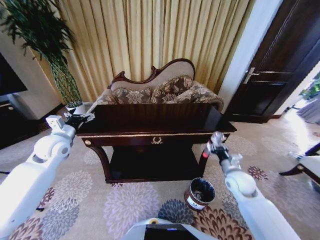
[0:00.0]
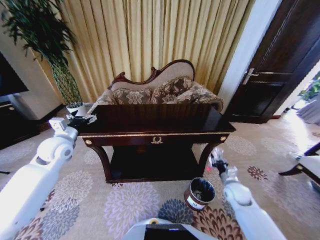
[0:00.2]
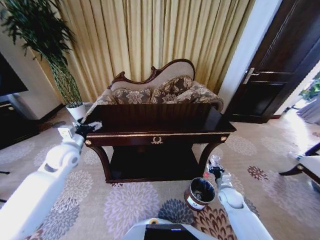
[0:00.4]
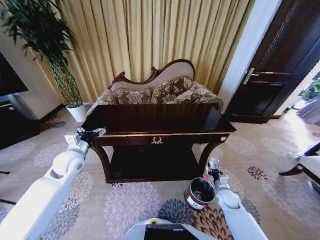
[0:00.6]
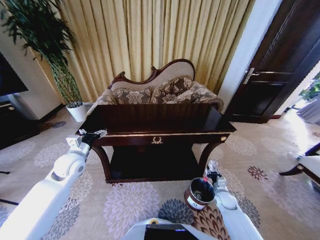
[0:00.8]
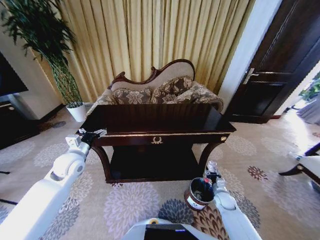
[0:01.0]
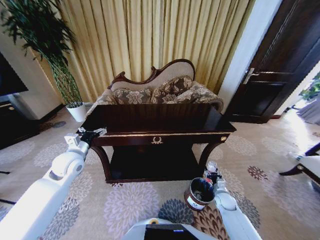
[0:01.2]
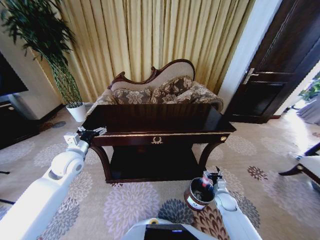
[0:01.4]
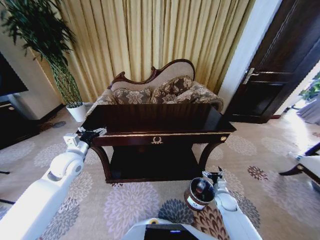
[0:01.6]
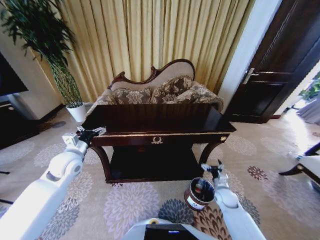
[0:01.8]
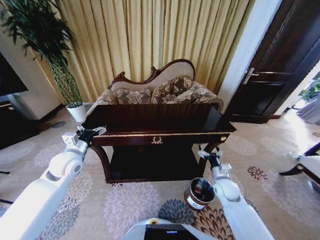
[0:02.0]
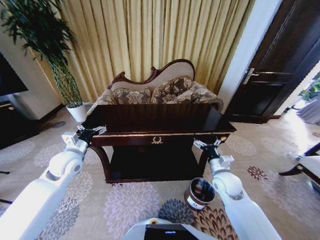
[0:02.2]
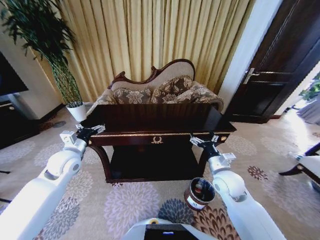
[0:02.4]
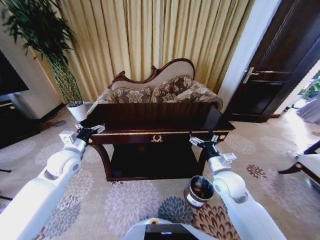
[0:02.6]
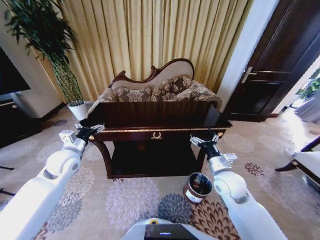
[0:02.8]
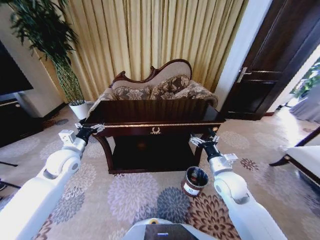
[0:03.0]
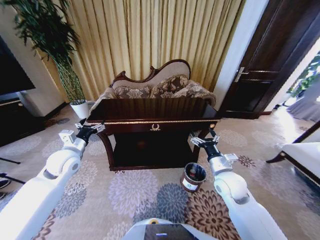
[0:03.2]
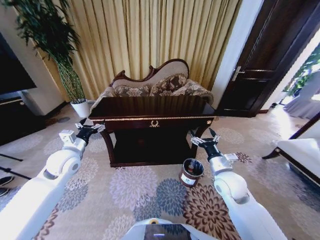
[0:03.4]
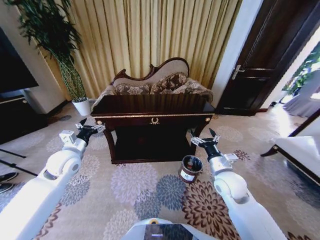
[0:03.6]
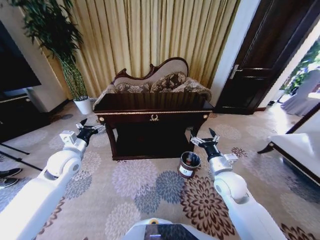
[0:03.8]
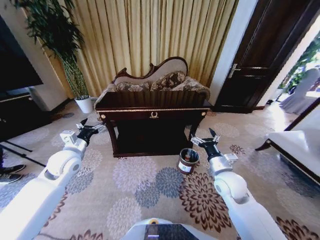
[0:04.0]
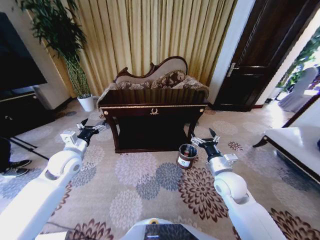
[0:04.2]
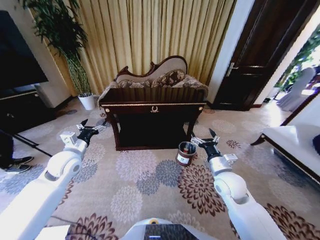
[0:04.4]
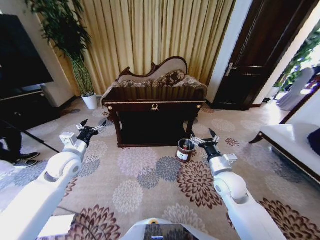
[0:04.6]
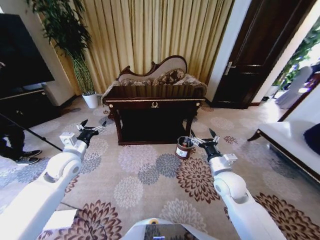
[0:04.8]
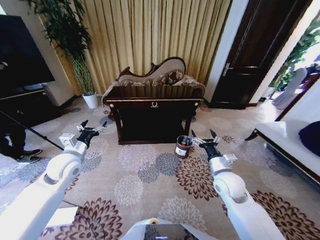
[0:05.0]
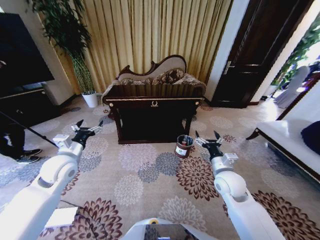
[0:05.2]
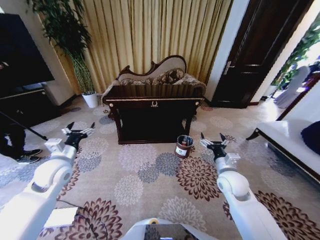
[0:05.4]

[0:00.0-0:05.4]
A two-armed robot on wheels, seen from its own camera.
Task of the whole recording: Move to the front of the table and place the trash on the table into the trash bin.
0:00.0 to 0:01.4: The left gripper is displaced downward by about 5 cm. The right gripper travels downward by some 20 cm, and opens its fingers.
0:01.4 to 0:02.8: The right gripper moves upward and to the left, some 30 cm.

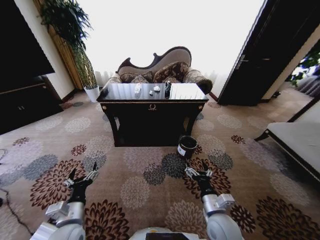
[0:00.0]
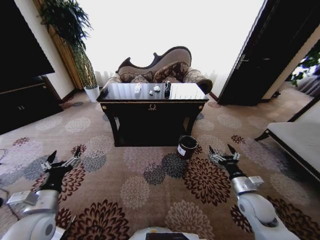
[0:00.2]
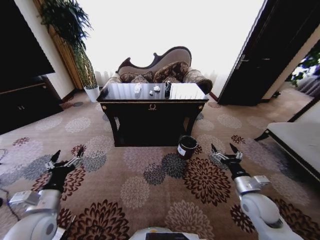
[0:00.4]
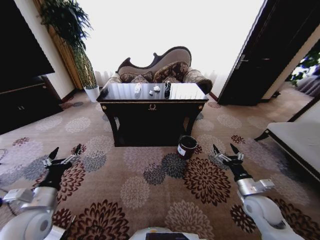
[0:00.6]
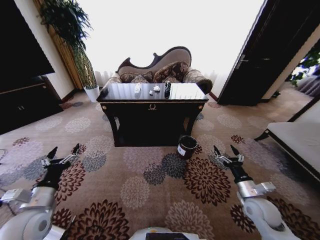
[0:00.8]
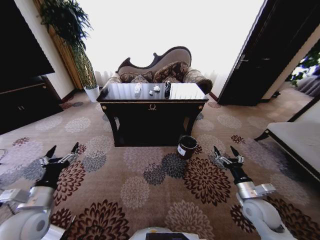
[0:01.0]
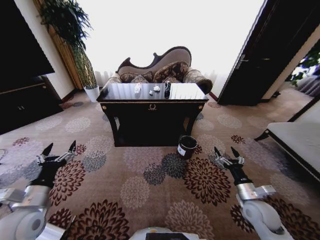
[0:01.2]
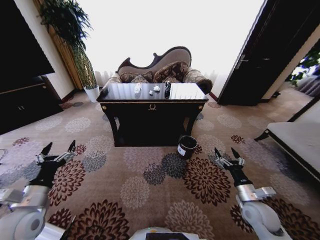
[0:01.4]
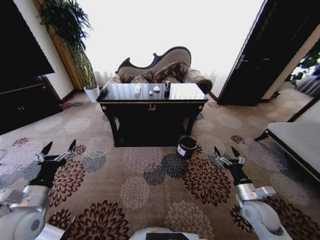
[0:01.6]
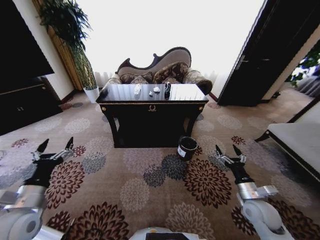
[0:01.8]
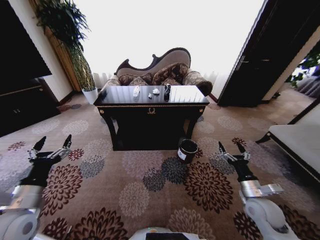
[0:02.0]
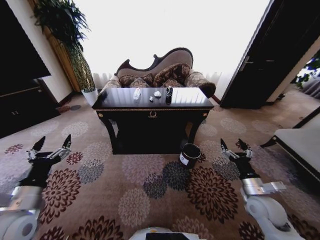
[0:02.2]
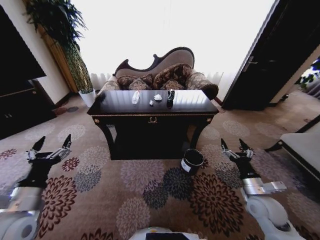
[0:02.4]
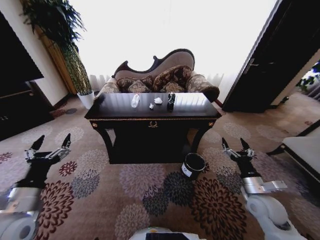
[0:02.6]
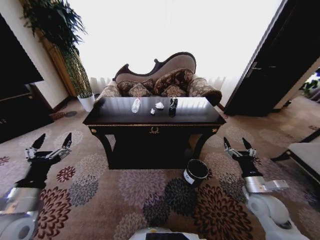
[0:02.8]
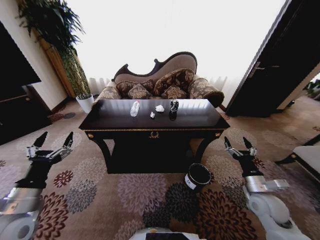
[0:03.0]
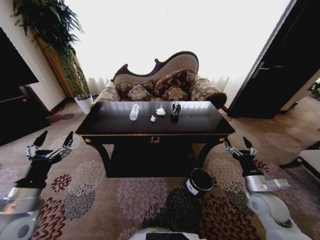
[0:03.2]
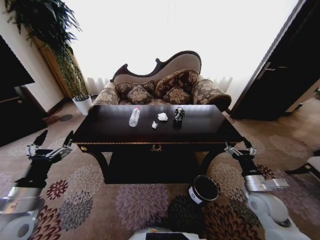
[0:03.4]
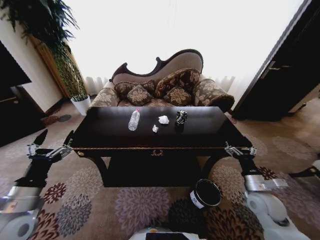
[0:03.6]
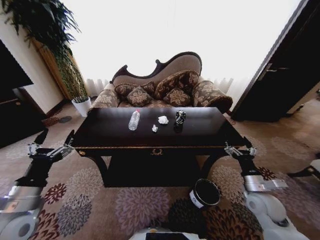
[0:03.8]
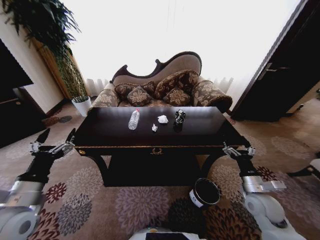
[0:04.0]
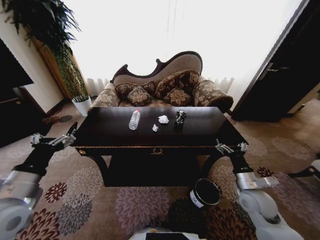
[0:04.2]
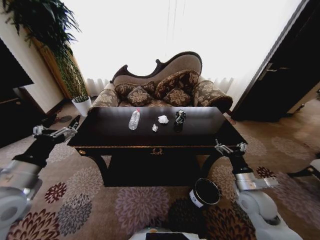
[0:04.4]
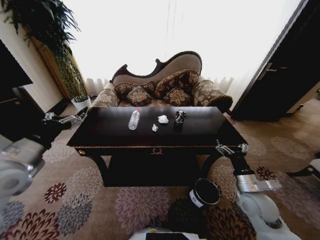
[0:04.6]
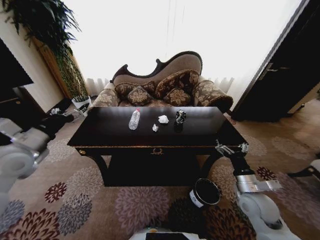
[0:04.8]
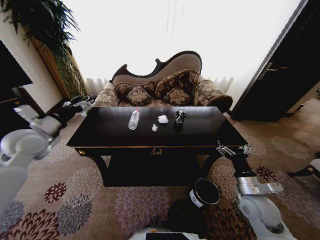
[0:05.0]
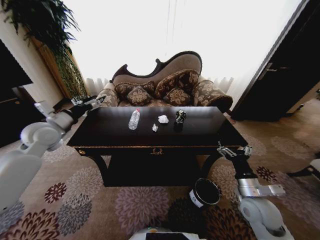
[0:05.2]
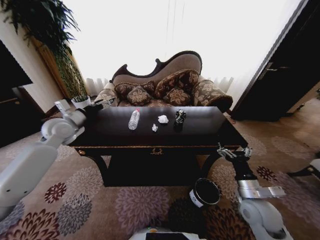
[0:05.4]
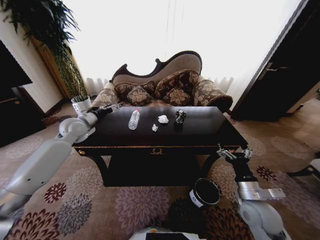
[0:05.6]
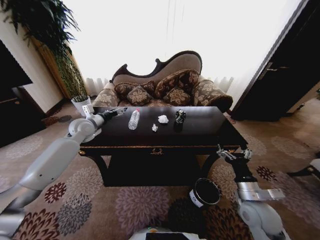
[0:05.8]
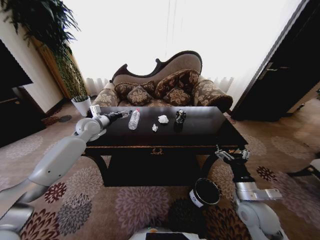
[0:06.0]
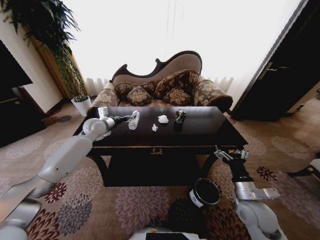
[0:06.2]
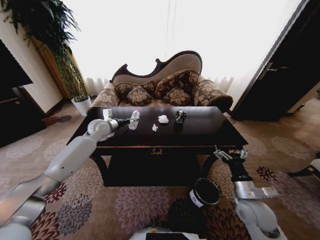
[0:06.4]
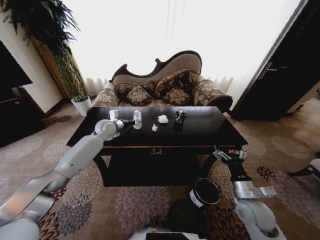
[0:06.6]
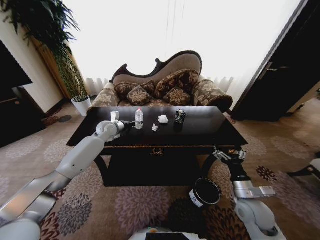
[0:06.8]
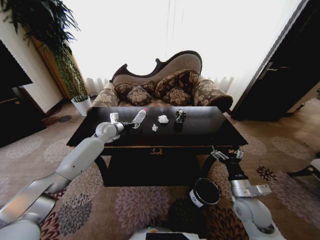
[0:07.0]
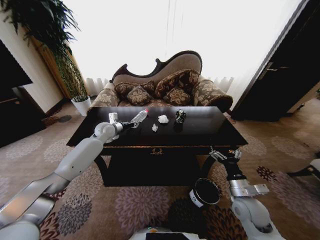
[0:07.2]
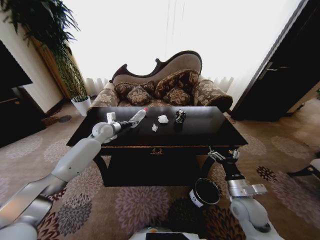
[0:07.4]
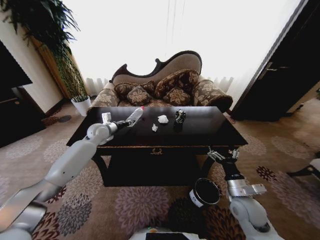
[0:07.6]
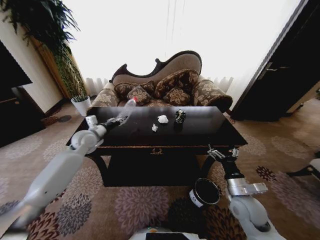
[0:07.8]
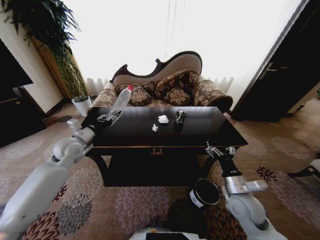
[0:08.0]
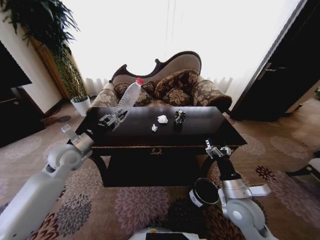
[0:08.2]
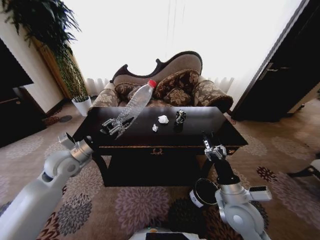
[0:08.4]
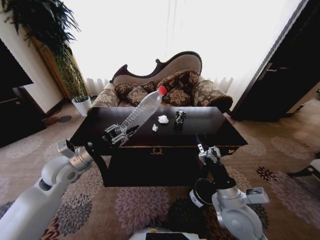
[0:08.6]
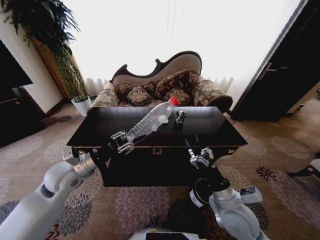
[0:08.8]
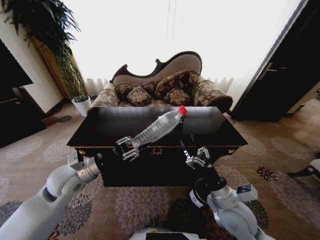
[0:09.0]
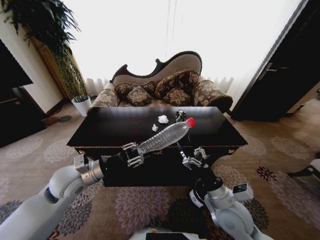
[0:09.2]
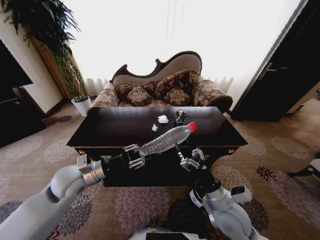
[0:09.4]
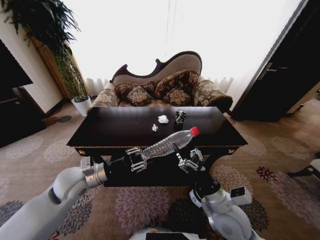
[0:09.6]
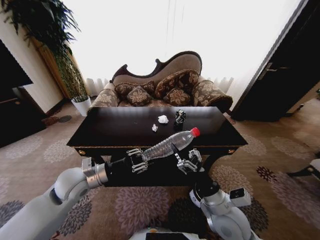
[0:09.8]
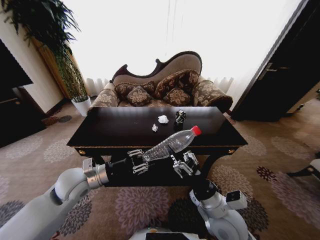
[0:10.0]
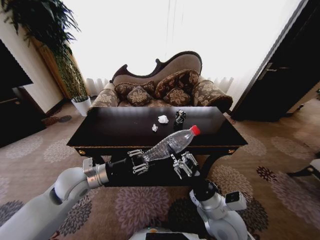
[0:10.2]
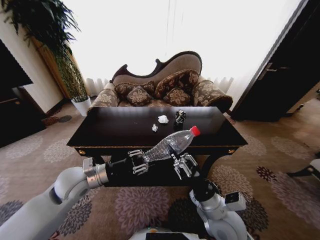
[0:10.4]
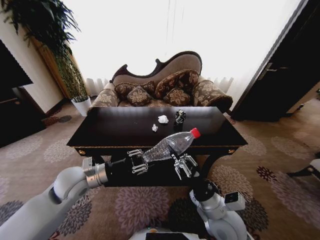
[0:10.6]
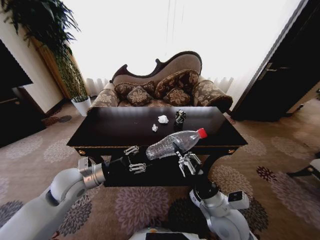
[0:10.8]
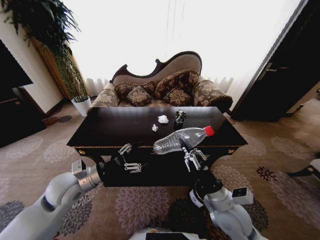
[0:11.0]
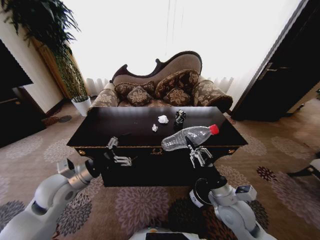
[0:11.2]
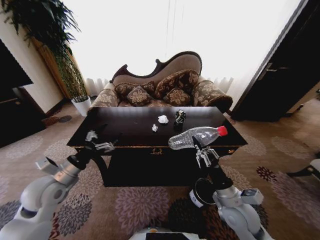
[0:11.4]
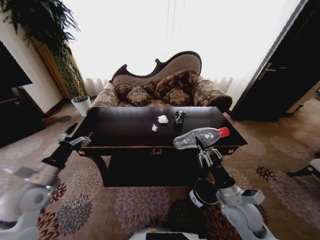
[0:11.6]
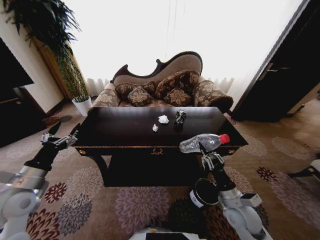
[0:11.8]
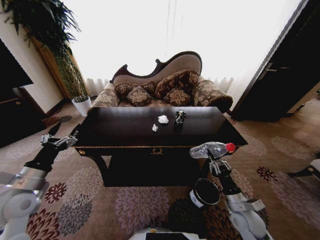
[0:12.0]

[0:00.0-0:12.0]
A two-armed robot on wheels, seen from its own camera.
Task of the whole recording: Move to the front of the table and place the trash on the table into the trash bin.
0:03.0 to 0:04.4: The left gripper heads upward, covering some 10 cm.
0:04.4 to 0:06.0: The left gripper goes about 30 cm forward.
0:06.0 to 0:07.6: The left gripper closes up.
0:07.6 to 0:09.0: The left gripper goes about 25 cm backward. Meanwhile the right gripper travels to the left and upward by roughly 10 cm.
0:09.0 to 0:10.4: The right gripper closes its fingers.
0:10.4 to 0:12.0: The right gripper heads to the right and downward, covering approximately 15 cm. Meanwhile the left gripper shifts approximately 15 cm to the left and backward, and opens its fingers.

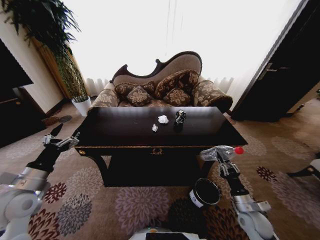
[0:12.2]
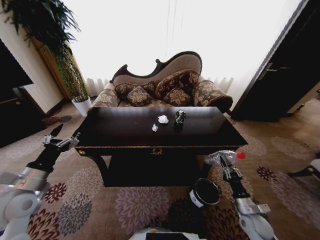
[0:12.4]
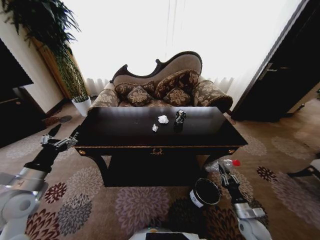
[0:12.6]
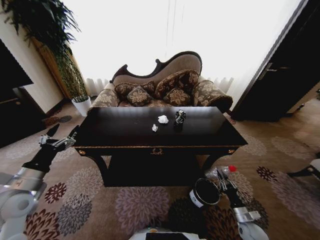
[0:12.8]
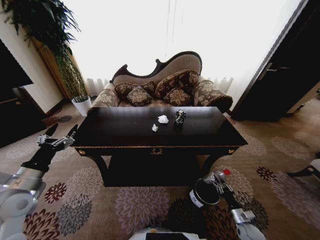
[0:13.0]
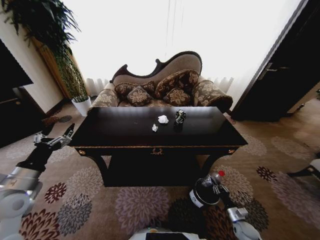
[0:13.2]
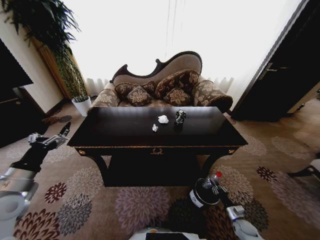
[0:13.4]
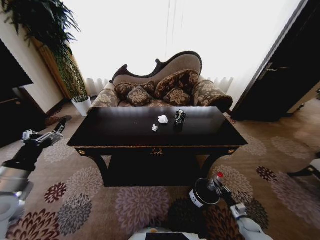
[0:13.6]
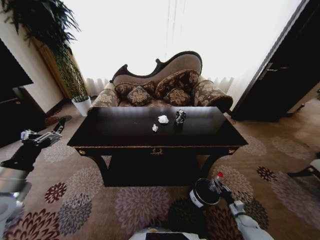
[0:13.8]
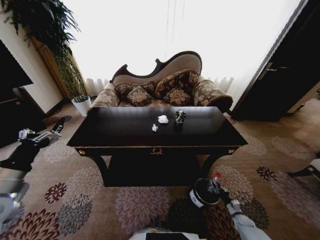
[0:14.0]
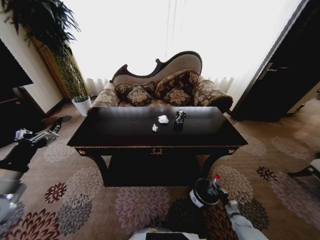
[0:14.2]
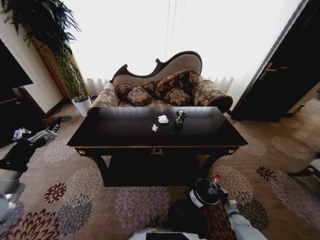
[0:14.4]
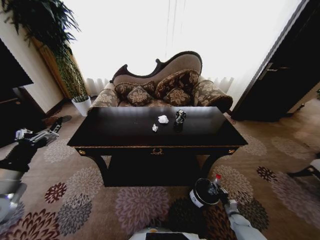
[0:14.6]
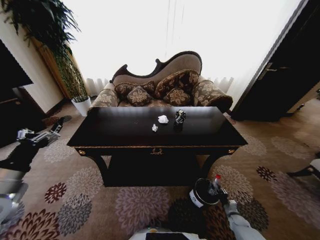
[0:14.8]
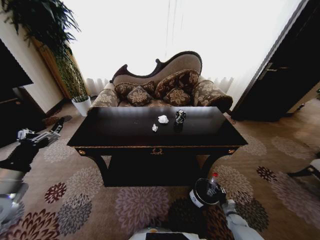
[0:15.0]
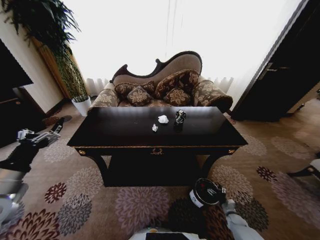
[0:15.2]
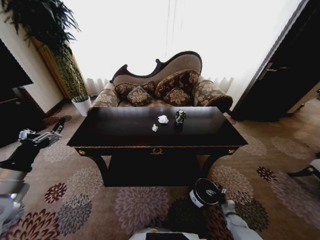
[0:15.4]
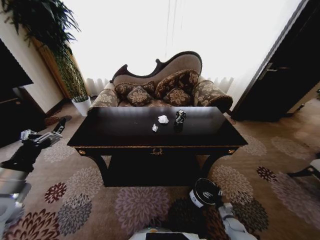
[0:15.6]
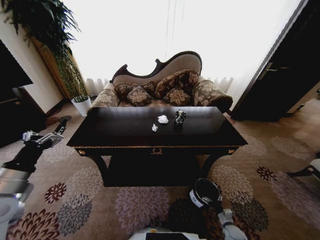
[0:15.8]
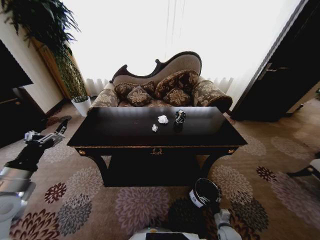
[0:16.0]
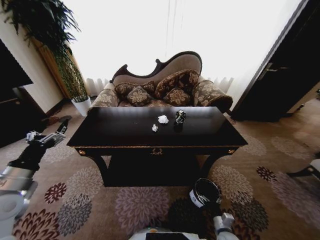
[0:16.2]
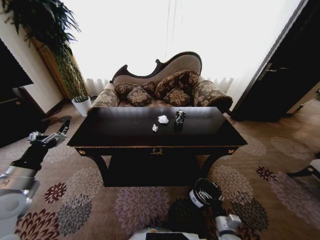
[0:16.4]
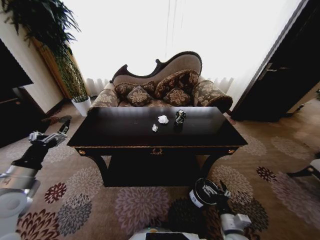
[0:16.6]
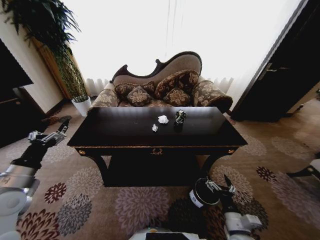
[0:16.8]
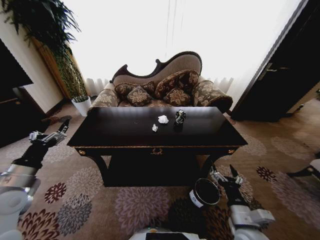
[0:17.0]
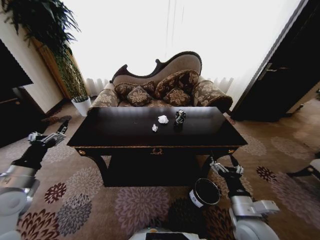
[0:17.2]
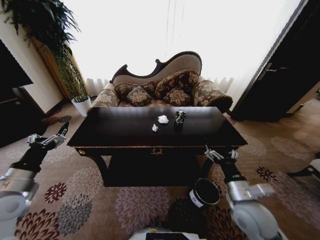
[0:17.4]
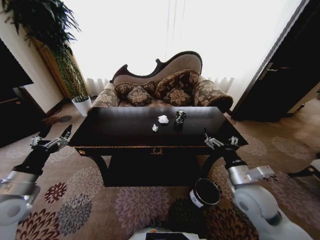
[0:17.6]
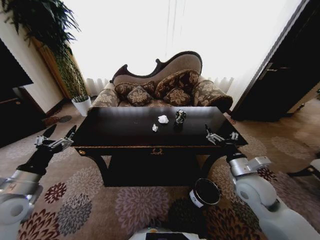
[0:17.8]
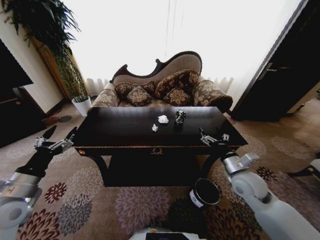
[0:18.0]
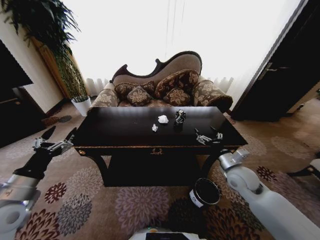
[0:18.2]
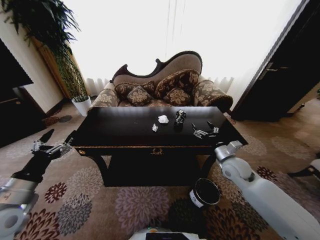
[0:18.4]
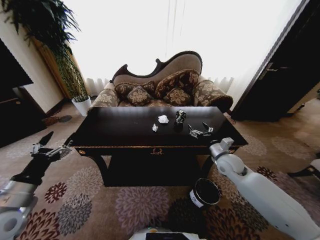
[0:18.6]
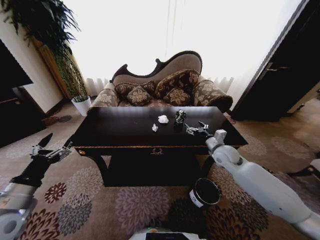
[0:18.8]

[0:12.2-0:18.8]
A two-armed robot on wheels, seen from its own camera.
Task of the whole recording: Move to the front of the table and place the trash on the table into the trash bin.
0:12.2 to 0:13.8: The right gripper heads downward and to the right, covering roughly 25 cm.
0:13.8 to 0:15.4: The right gripper changes place by some 5 cm, and opens.
0:15.4 to 0:17.2: The right gripper is displaced upward and to the left by about 40 cm.
0:17.2 to 0:18.8: The left gripper shifts by approximately 5 cm. The right gripper moves forward, about 25 cm.
